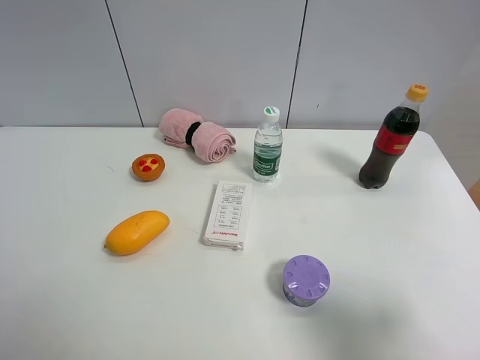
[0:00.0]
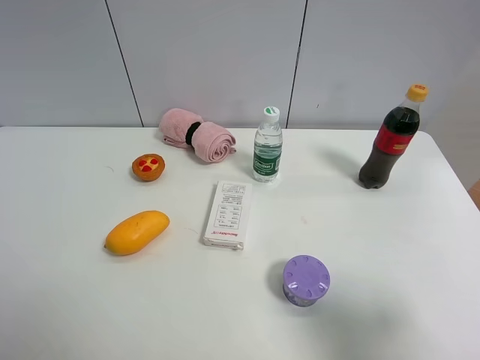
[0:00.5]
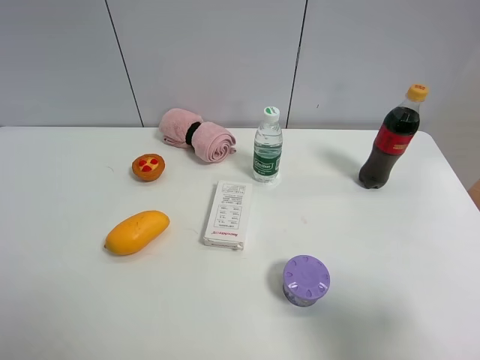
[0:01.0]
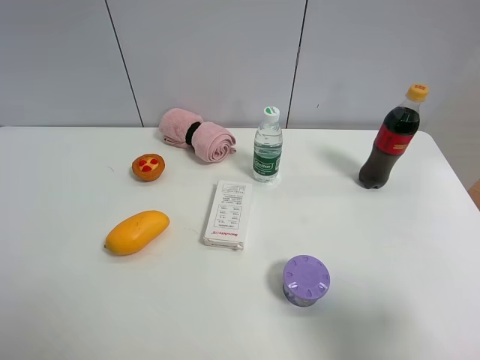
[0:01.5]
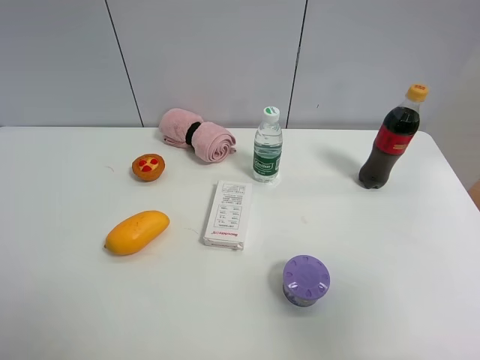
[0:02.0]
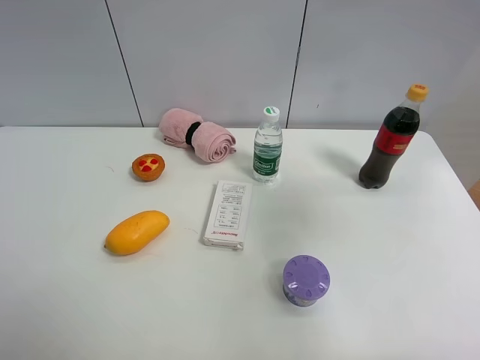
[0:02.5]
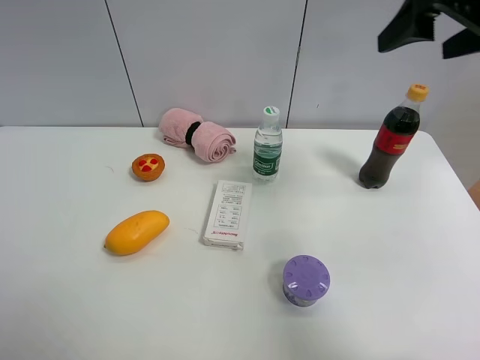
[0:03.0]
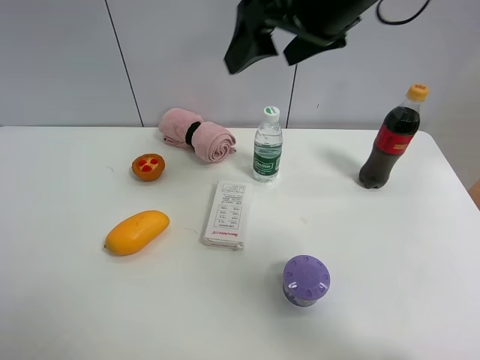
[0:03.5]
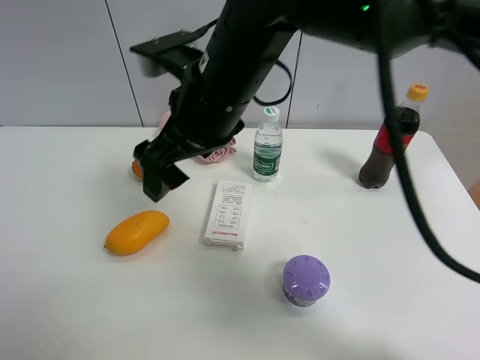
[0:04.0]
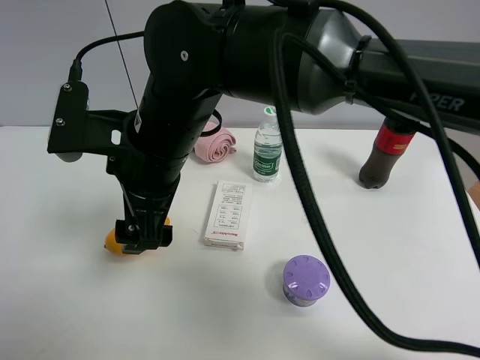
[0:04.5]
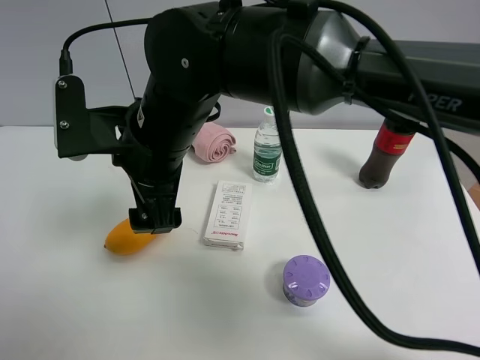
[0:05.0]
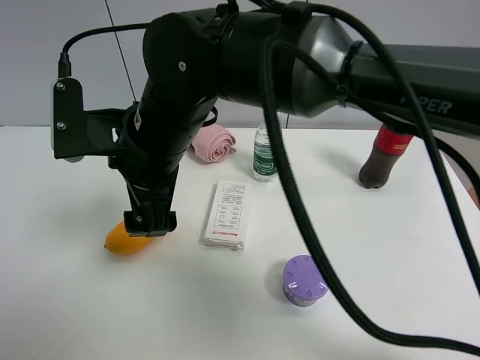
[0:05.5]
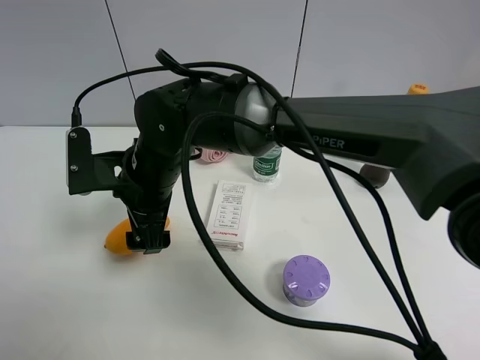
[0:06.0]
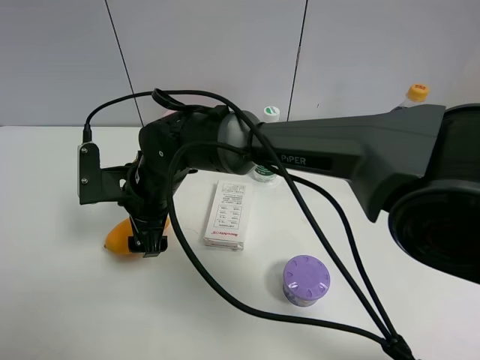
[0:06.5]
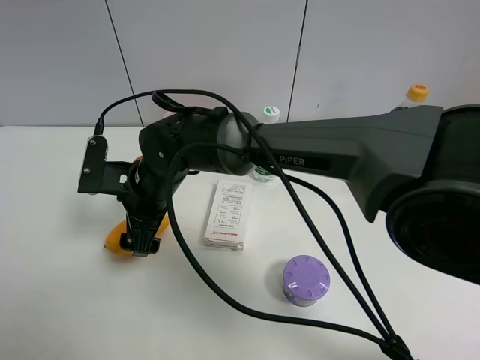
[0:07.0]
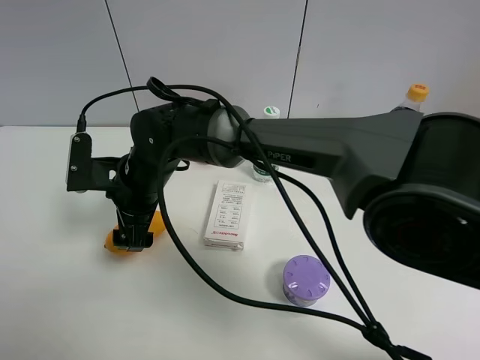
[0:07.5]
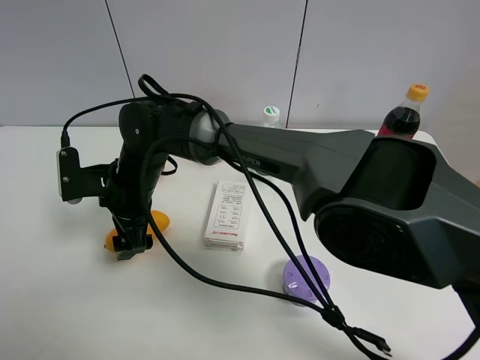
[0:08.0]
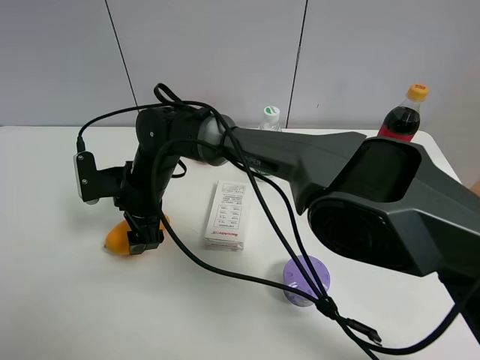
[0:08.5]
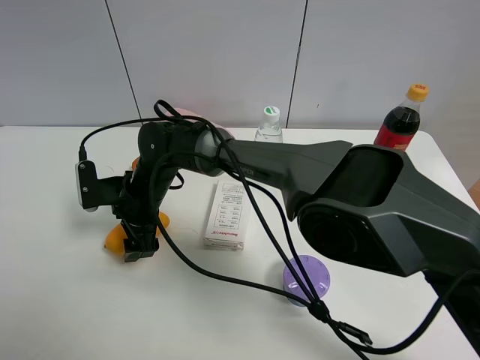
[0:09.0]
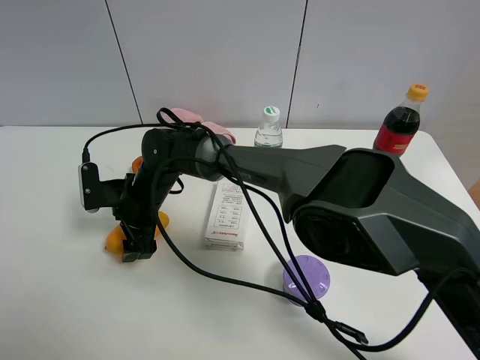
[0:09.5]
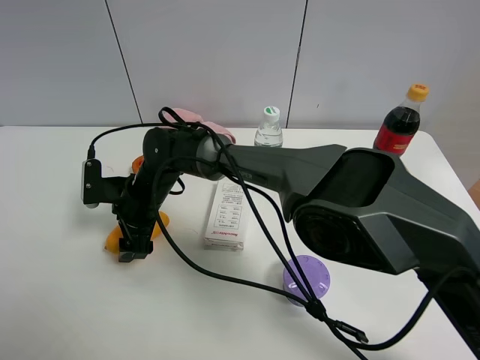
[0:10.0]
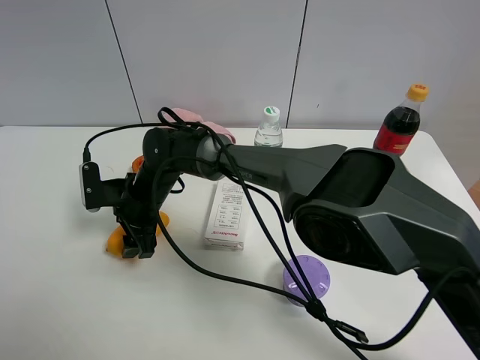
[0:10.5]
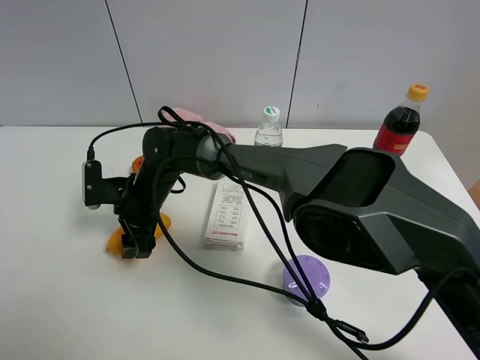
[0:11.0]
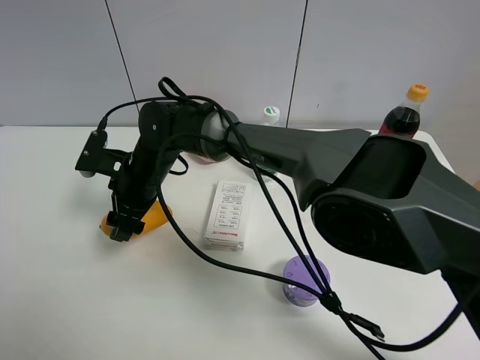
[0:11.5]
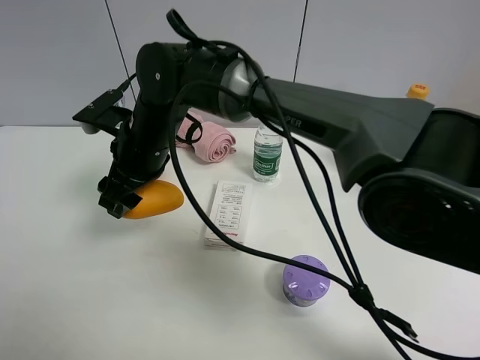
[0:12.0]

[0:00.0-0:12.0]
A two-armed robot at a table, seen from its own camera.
Task of the whole recording: the gripper move the object.
Step, 0:00.0 to 0:10.0: Grasp the mango with the right gripper.
0:00.0 to 0:02.0: The right gripper goes about 15 cm upward.
0:02.0 to 0:04.0: The right gripper goes about 40 cm to the left and forward.
0:04.0 to 0:06.0: The right gripper shifts roughly 15 cm downward and to the left.
0:06.0 to 0:08.0: The right gripper is displaced downward by approximately 5 cm.
0:08.0 to 0:10.0: The right gripper shifts some 5 cm downward, and closes.
0:10.0 to 0:12.0: The right gripper is displaced upward by roughly 15 cm, and closes.

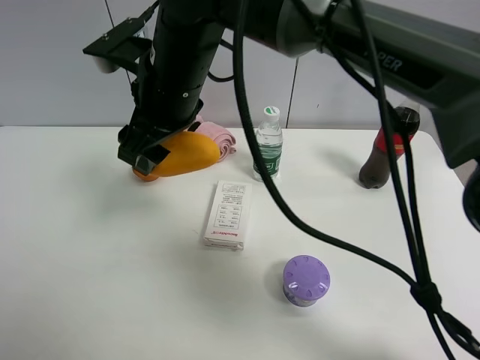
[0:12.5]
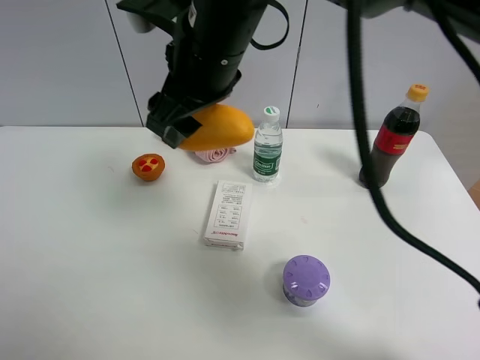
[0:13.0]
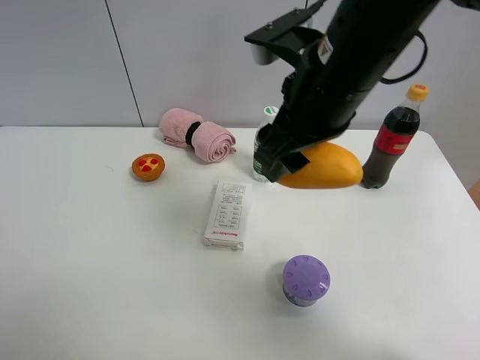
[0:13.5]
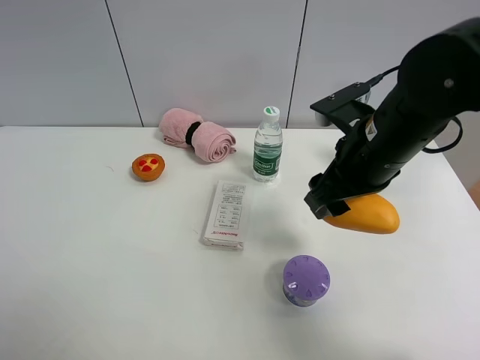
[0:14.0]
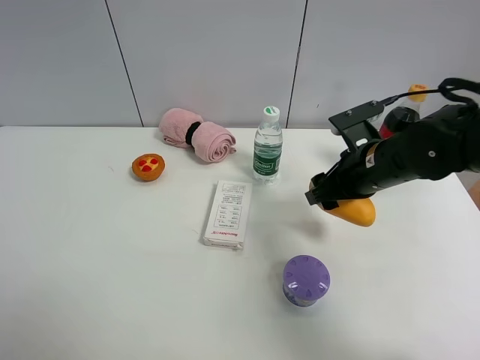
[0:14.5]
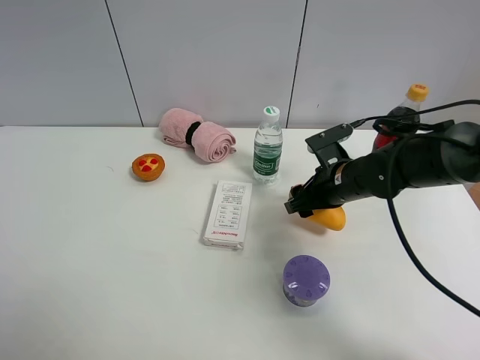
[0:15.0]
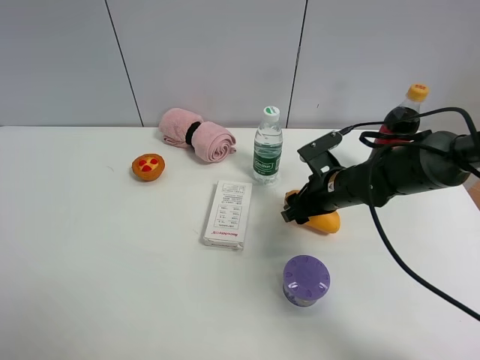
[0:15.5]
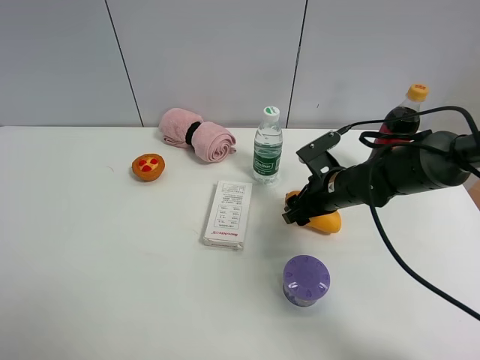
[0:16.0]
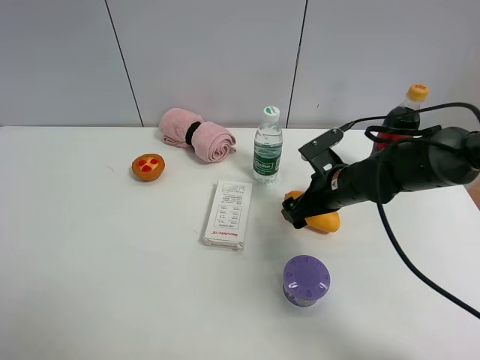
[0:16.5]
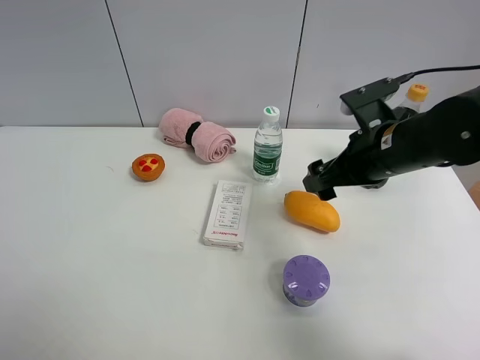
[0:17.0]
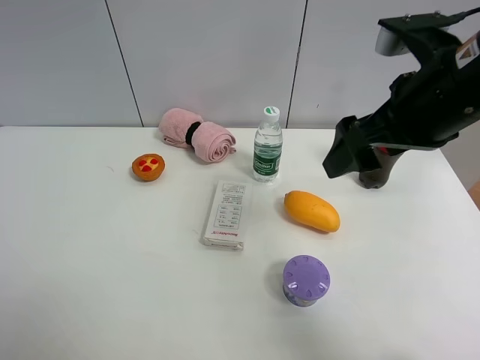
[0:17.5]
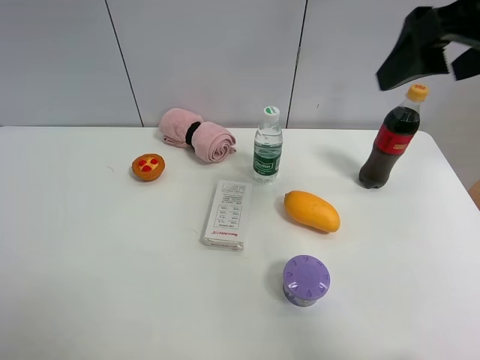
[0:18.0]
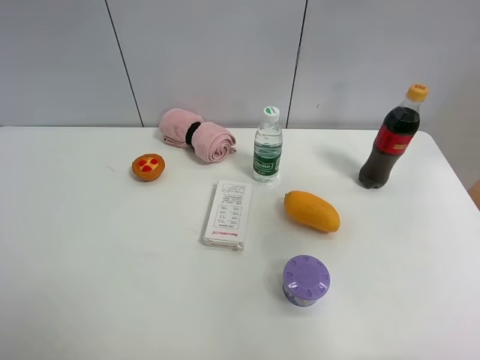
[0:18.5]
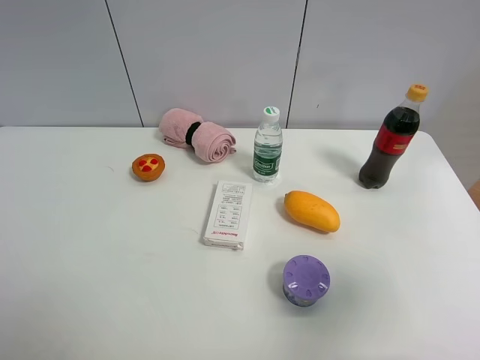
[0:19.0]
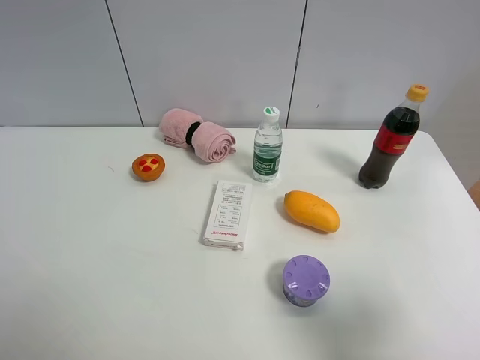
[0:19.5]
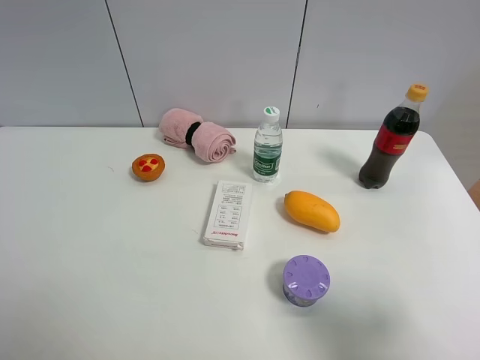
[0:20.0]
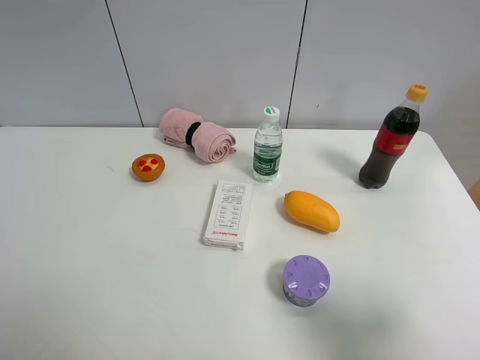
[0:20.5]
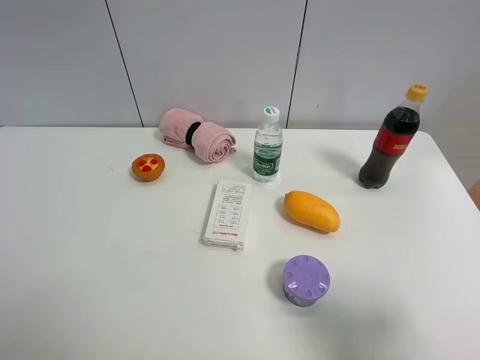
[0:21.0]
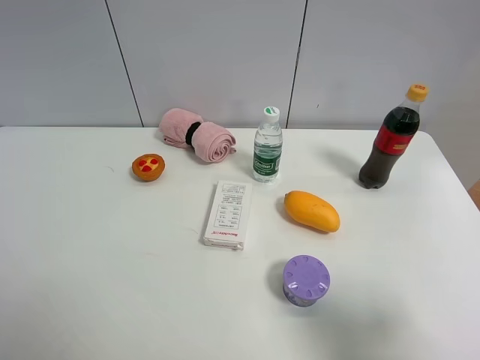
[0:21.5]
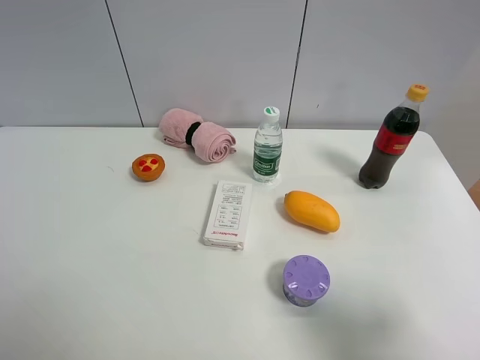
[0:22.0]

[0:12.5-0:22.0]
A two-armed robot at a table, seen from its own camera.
Task of the whole recording: the gripper move the object.
Step, 0:12.5 to 0:16.5: Place the mango on the table with the right gripper.
0:12.5 to 0:14.5: The right gripper moves to the right and downward, some 30 cm.
0:14.5 to 0:16.5: The right gripper moves downward, roughly 5 cm, and opens.
0:16.5 to 0:18.0: The right gripper heads upward, covering about 30 cm.
0:18.0 to 0:20.0: The right gripper is displaced backward and downward by roughly 25 cm.
0:20.0 to 0:22.0: Neither gripper changes place.

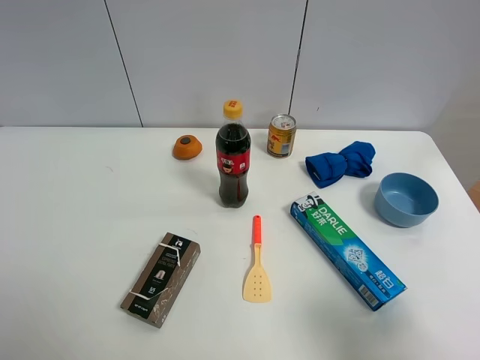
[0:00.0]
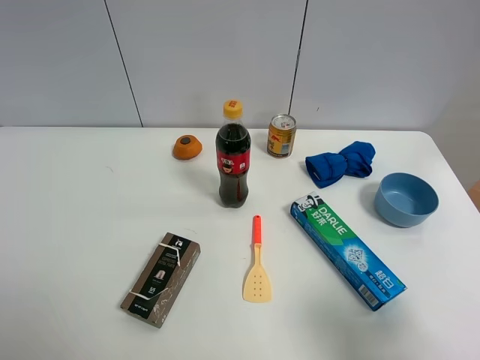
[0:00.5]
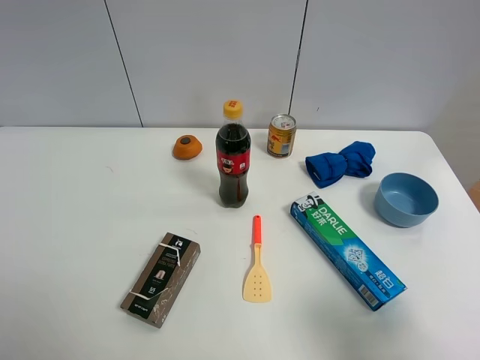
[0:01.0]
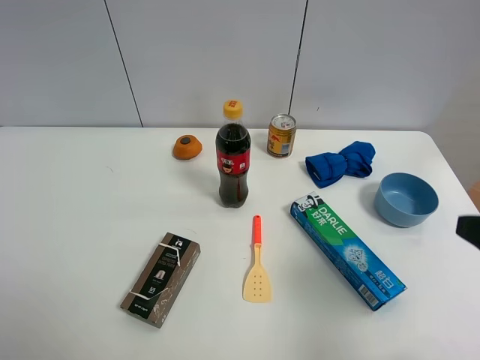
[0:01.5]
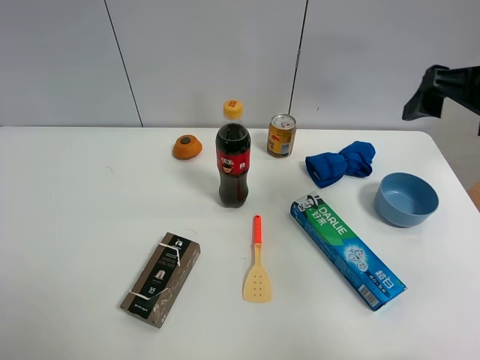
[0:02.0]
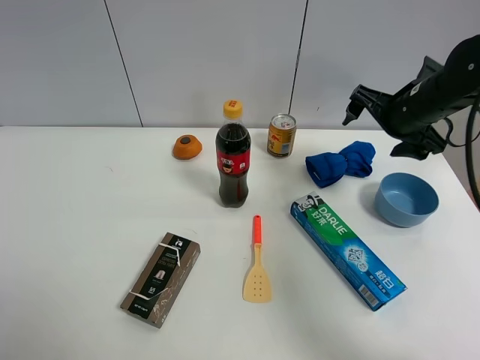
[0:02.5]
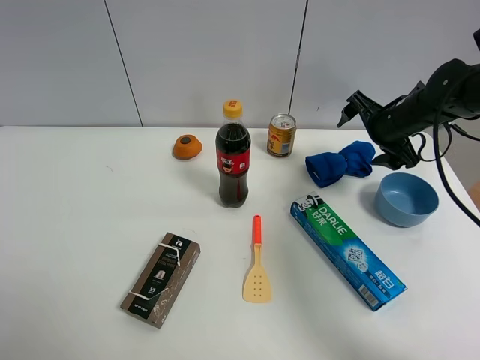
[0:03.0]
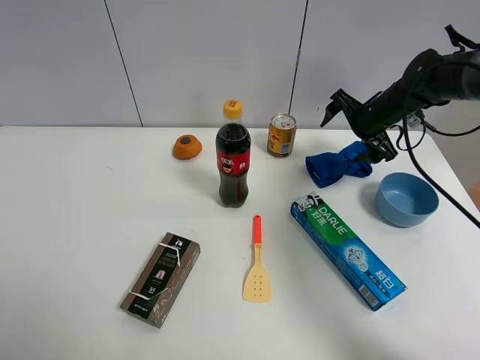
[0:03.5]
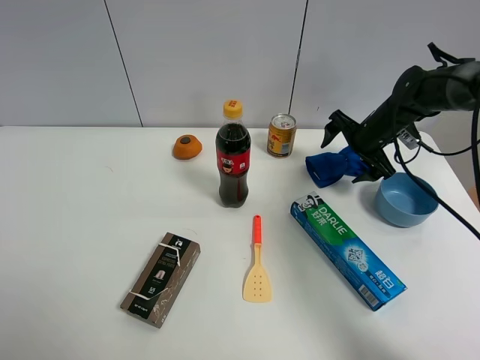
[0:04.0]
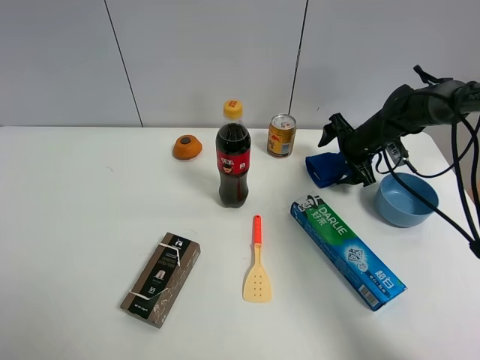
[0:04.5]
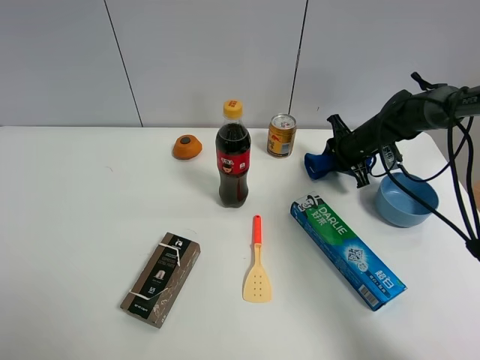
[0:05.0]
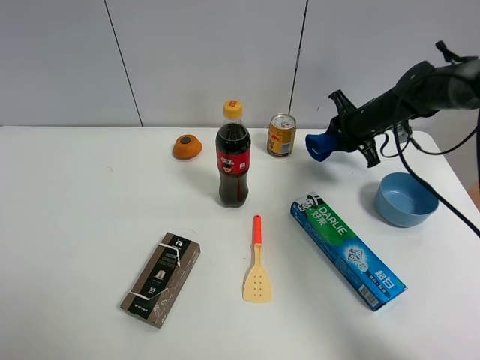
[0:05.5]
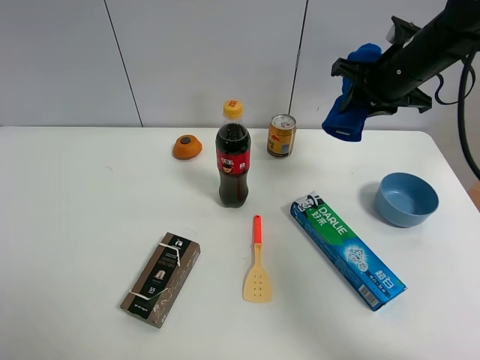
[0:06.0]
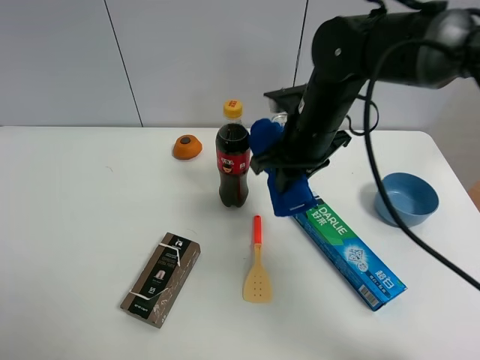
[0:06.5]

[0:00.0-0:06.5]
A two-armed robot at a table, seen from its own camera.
Task of the whole recording: the gripper move the object.
Step, 0:00.0 to 0:04.5: Grasp the blue towel with the right gripper.
0:00.0 to 0:02.0: The right gripper travels forward by about 25 cm.
0:02.0 to 0:04.5: The right gripper travels downward and forward by roughly 30 cm.
0:04.5 to 0:06.5: The right gripper moves to the left, backward and upward, some 25 cm, and closes its fingers.
